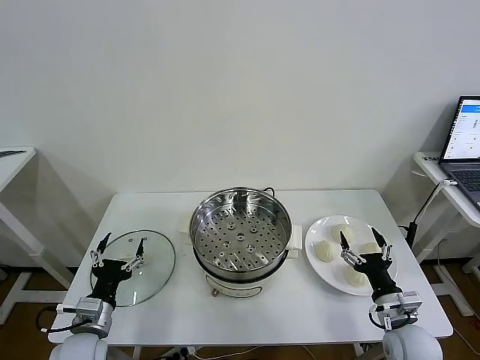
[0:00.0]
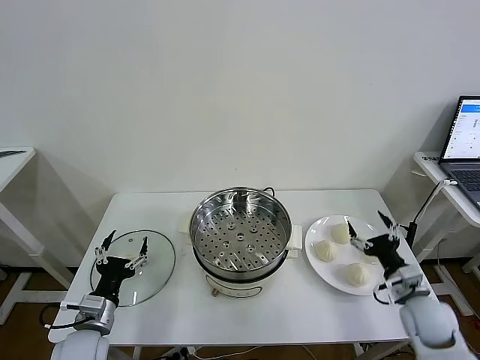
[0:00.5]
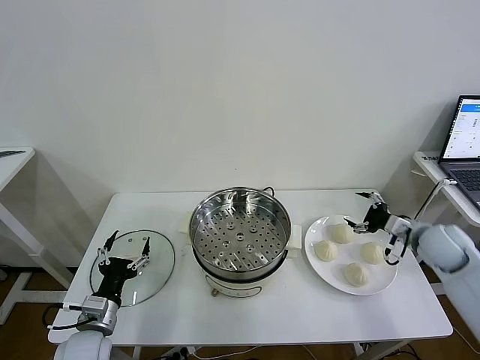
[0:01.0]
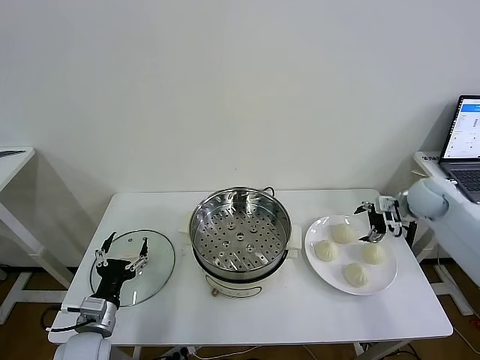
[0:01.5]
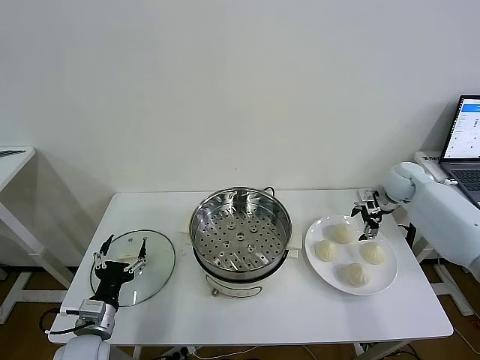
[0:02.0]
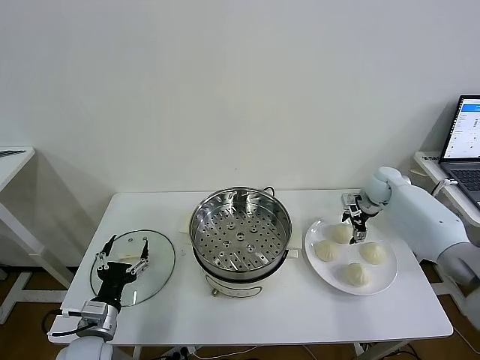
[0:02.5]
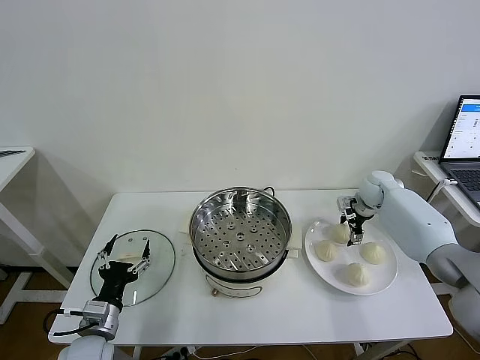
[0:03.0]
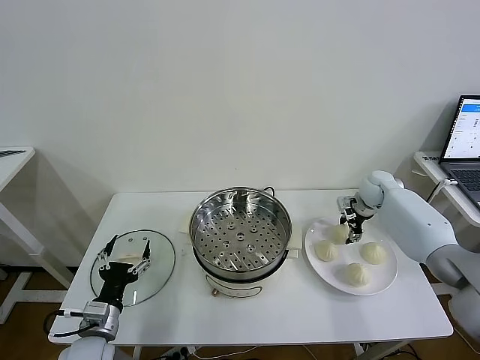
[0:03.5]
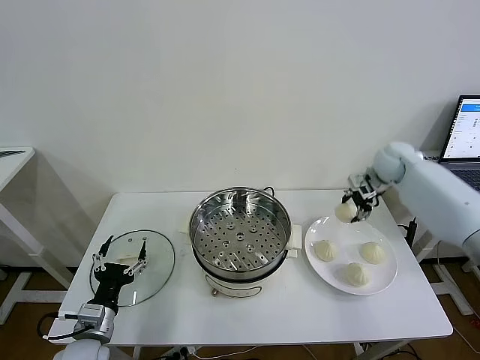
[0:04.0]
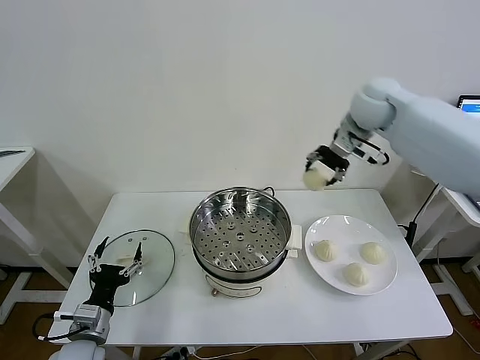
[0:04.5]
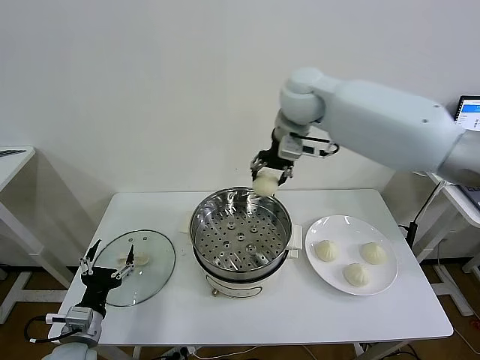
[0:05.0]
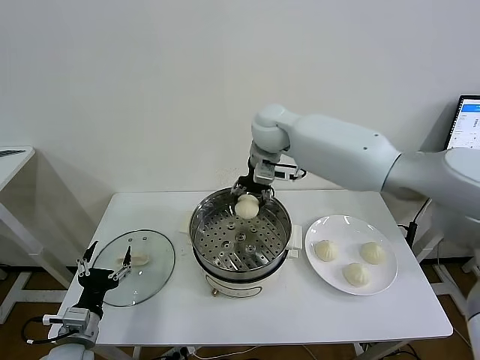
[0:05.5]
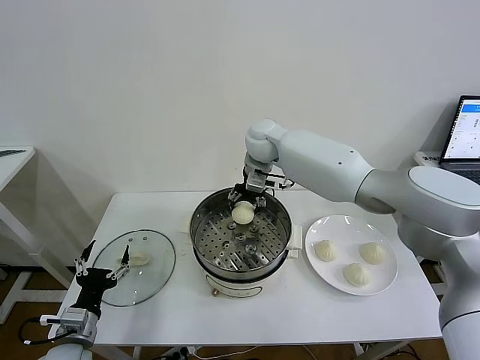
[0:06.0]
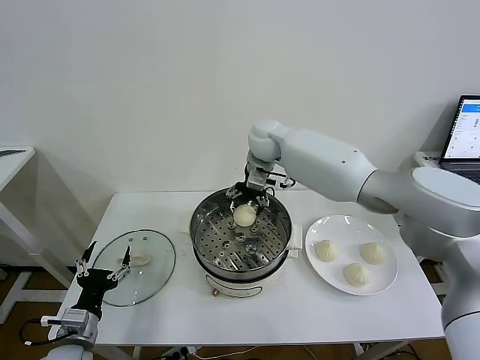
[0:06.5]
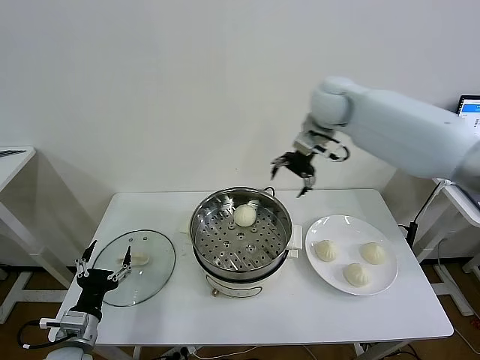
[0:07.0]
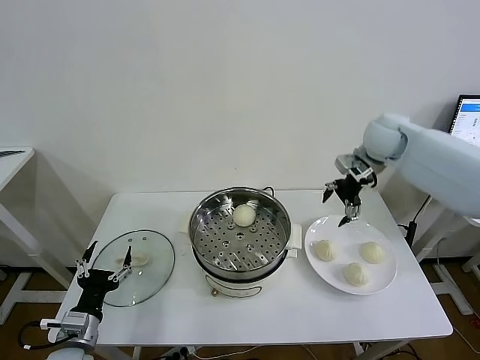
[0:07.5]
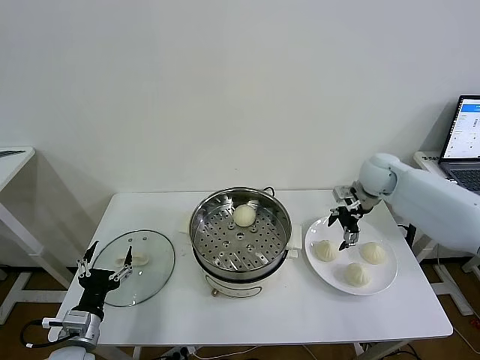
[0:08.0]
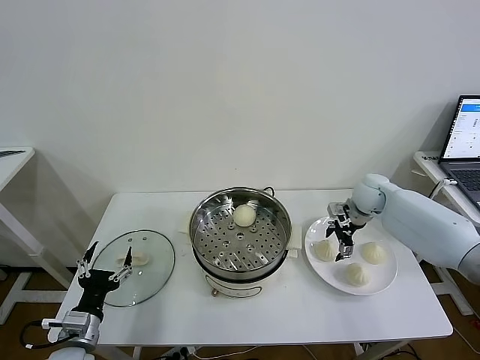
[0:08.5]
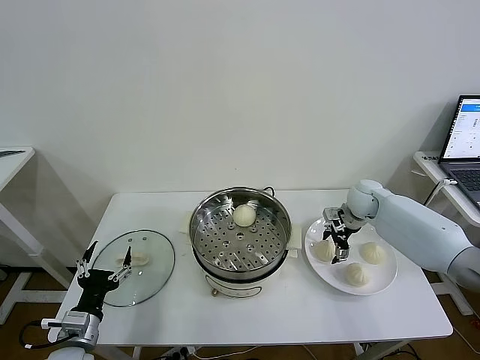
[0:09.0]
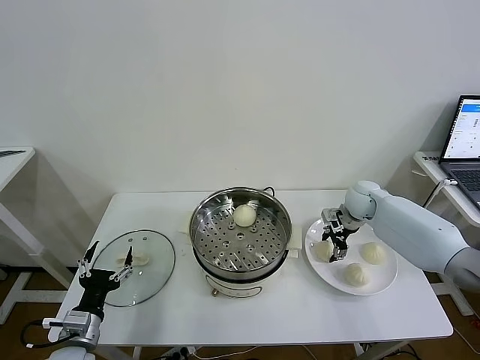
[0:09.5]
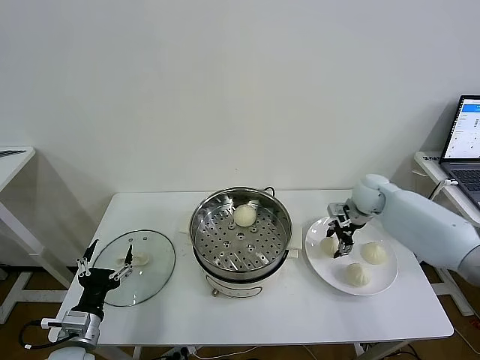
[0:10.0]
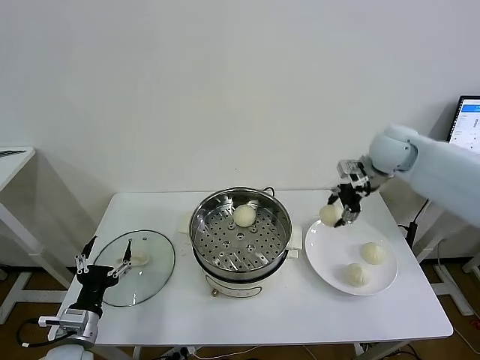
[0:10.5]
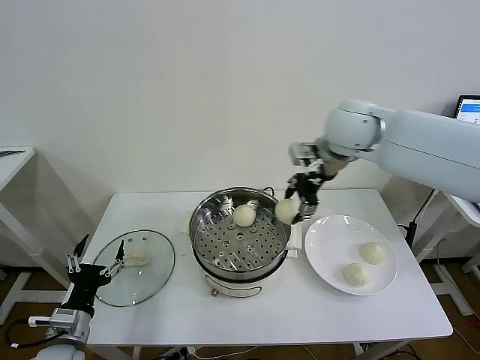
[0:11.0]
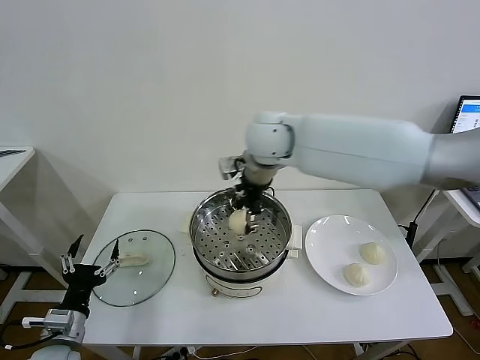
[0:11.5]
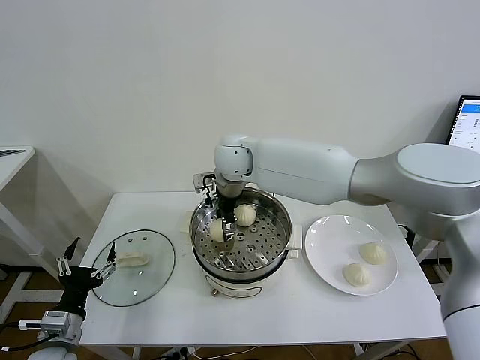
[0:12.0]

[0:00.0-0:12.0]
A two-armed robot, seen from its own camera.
Task of the whole recording: take steamed baozi put them in steamer then cover it.
Step, 0.0 to 3.0 s: Grasp the baozi in the plate with right gripper.
Step, 3.5 to 6.0 s: Place the baozi on the steamer with right gripper.
Step, 6.5 to 9.5 s: Grasp the baozi in the plate with right gripper.
2.0 to 4.0 s: The right gripper travels upward by some 10 cm, and closes its fingers.
4.0 to 6.0 s: The right gripper is displaced to the left by about 30 cm.
6.0 to 8.0 s: The right gripper is displaced to the right by approximately 30 cm, and opens its fingers.
8.0 to 10.0 s: The right gripper closes up.
10.0 to 12.0 s: The right gripper travels to the left by approximately 35 cm.

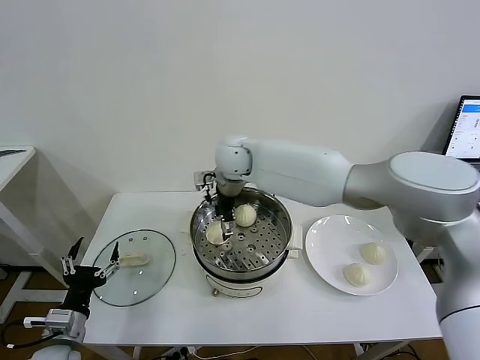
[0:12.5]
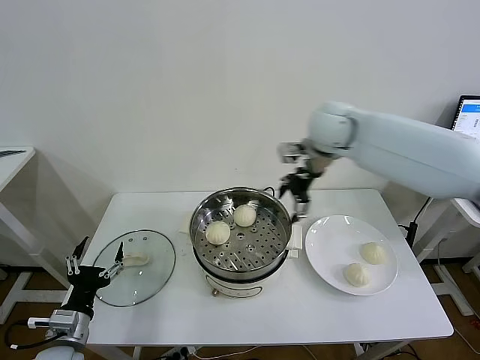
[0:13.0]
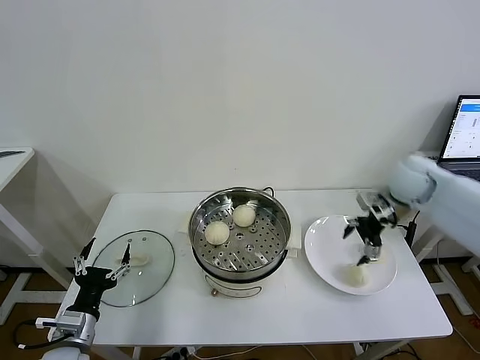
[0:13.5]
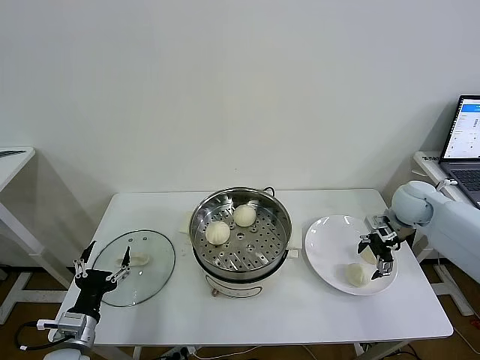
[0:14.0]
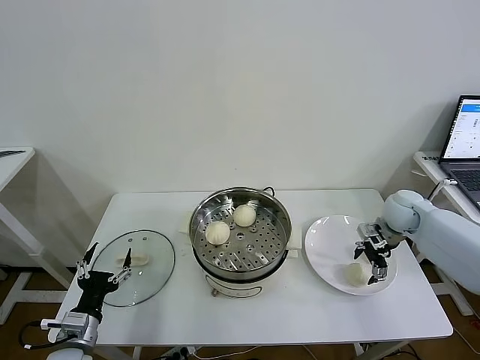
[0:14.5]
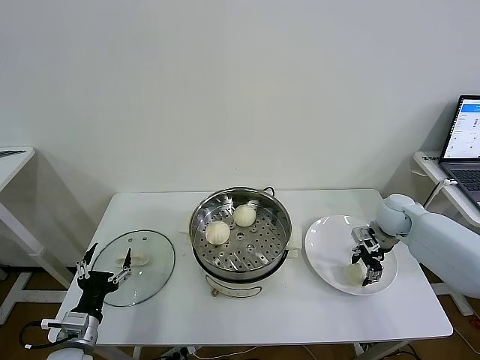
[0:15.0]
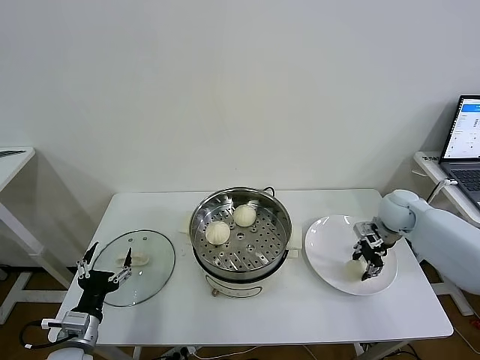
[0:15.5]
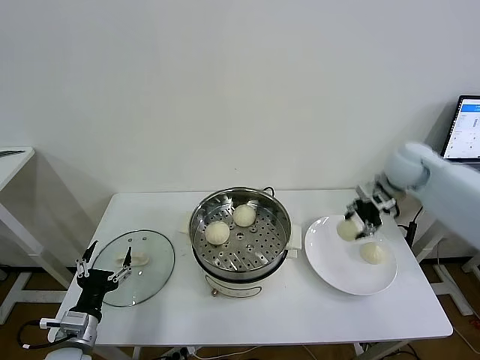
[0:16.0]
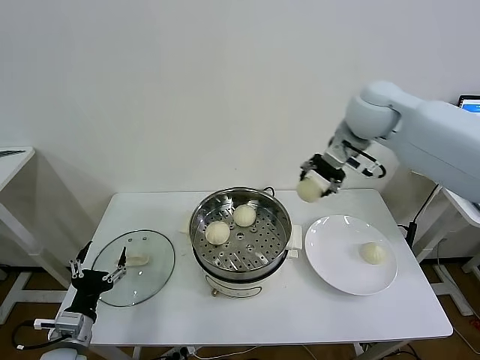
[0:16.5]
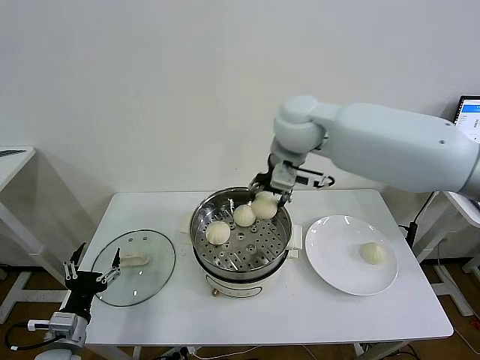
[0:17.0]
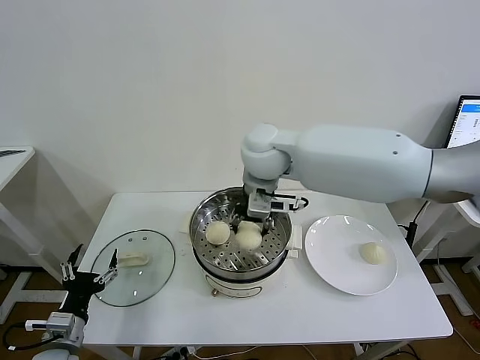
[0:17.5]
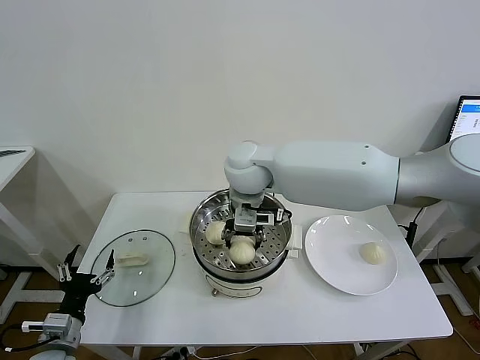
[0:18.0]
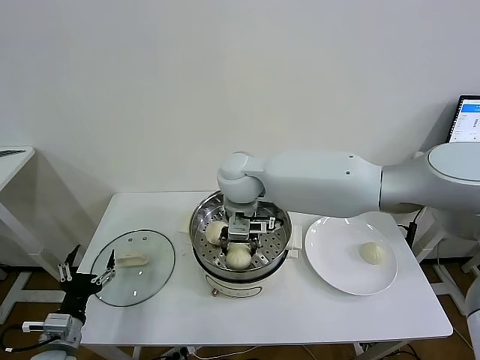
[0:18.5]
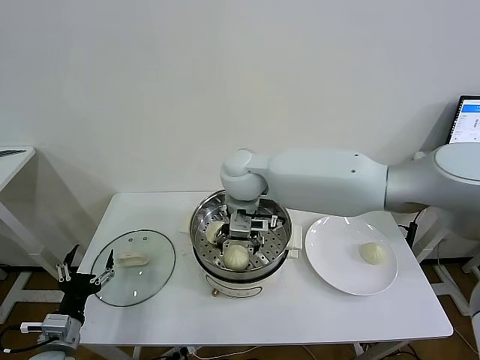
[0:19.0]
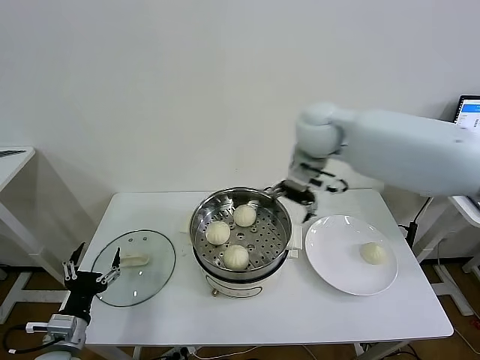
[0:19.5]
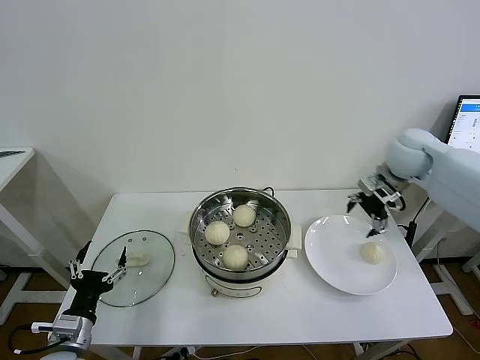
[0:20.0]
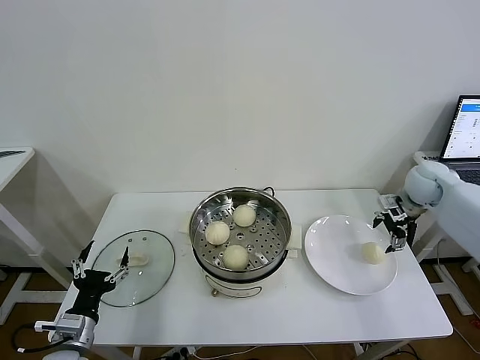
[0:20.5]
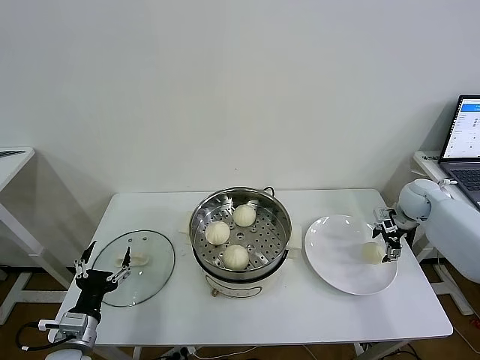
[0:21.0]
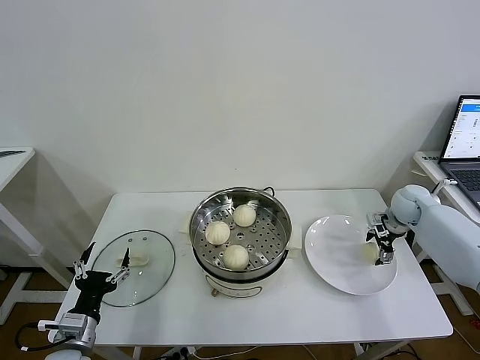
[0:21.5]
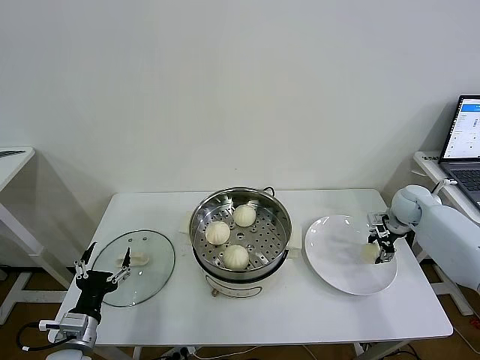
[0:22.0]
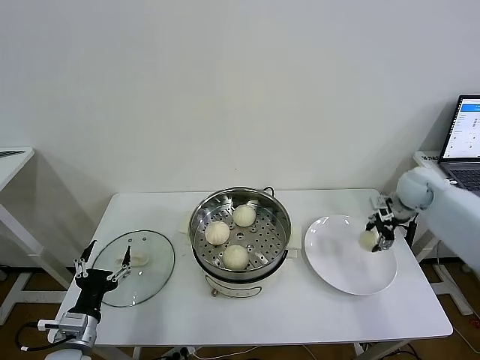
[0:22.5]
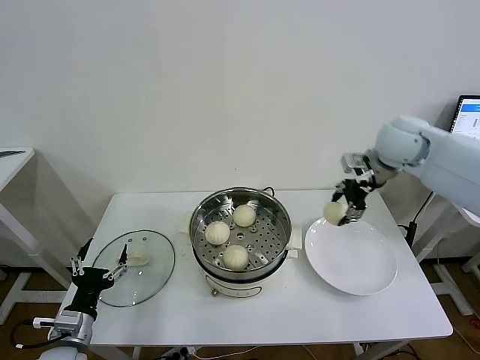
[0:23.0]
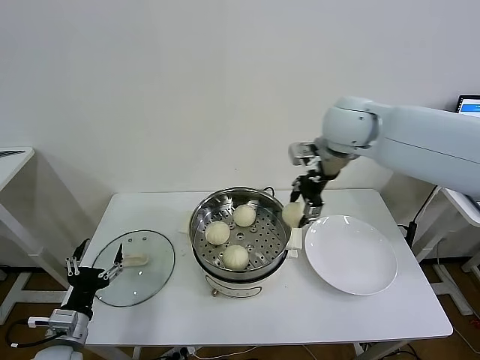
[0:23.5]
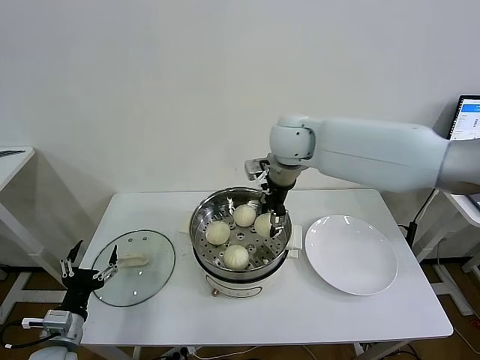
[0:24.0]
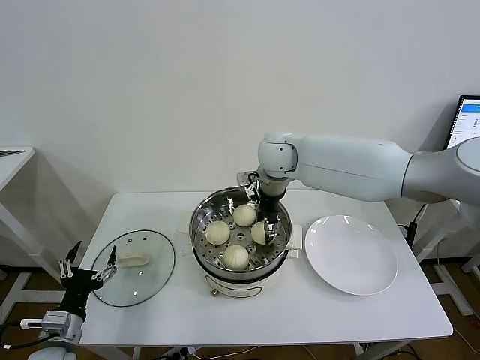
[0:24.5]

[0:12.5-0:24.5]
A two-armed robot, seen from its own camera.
Task of the whole recording: take steamed baozi put them in steamer then cover it.
Step, 12.5 to 15.0 s: Grasp the baozi in the plate with right gripper.
Step, 15.5 to 18.5 s: Place the baozi on the steamer with right gripper.
Step, 19.0 to 21.5 s: Grasp the baozi in the plate with right gripper.
12.5 to 14.5 s: The right gripper travels to the right by about 40 cm.
14.5 to 16.5 s: The right gripper heads upward and to the left, covering approximately 30 cm, and closes up.
16.5 to 18.5 s: The right gripper heads to the left and downward, covering approximately 25 cm.
18.5 to 20.5 s: The right gripper moves to the right, about 40 cm, and opens its fingers.
20.5 to 22.5 s: The right gripper reaches about 10 cm downward, then returns, and closes.
22.5 to 24.5 s: The right gripper travels to the left by some 35 cm.

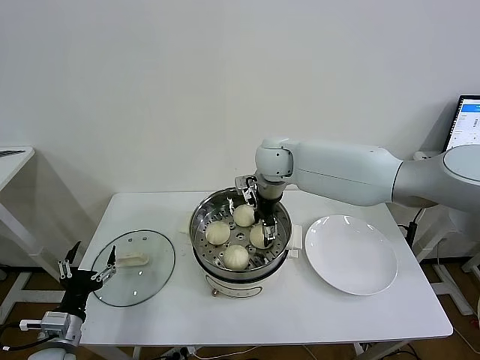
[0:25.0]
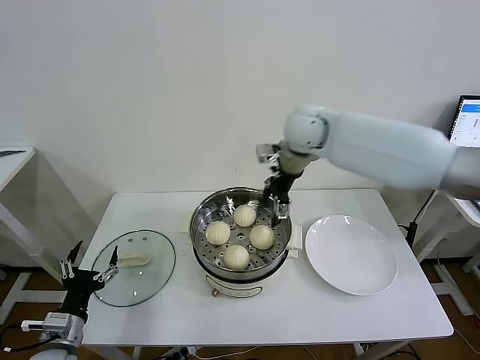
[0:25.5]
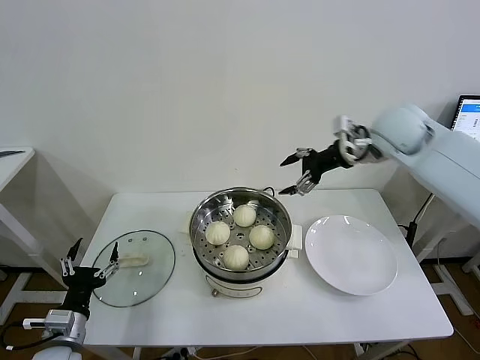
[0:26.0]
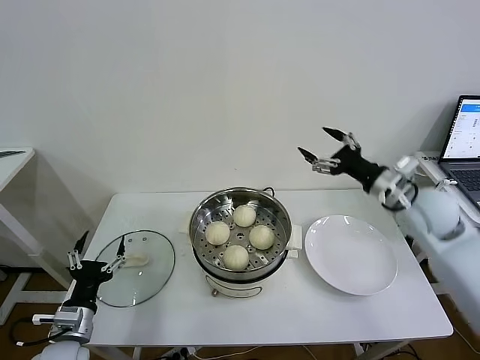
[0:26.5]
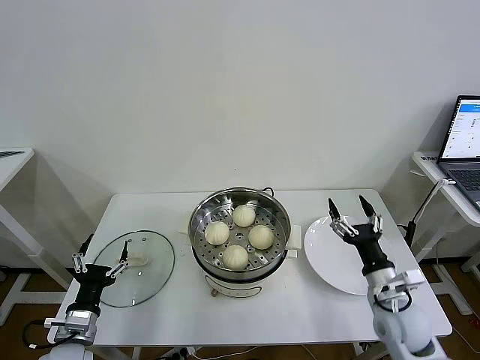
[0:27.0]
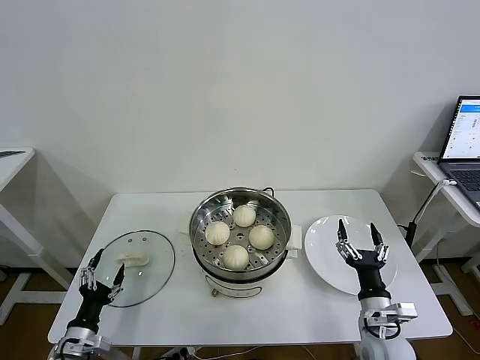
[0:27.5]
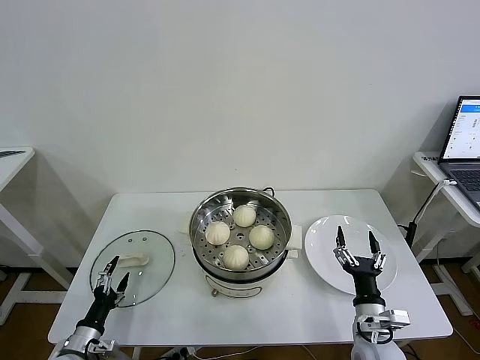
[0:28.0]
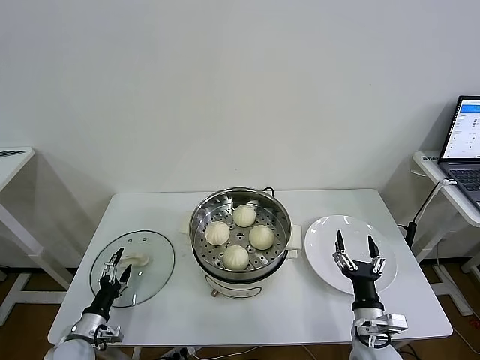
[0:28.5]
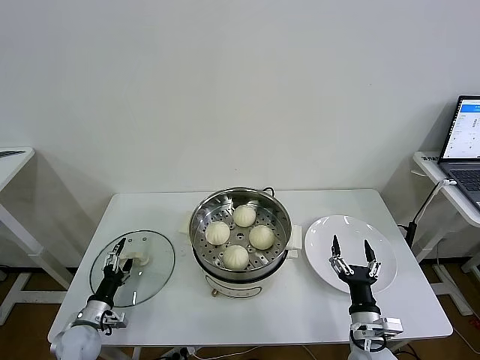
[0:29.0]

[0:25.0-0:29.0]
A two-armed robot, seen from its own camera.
Task of the whole recording: take steamed baozi put them in steamer then cover it.
25.0 to 27.0 s: The right gripper is displaced backward, to the right and downward by about 40 cm.
27.0 to 29.0 s: The right gripper travels downward and backward by about 10 cm, while the left gripper goes roughly 15 cm downward, forward and to the left.
